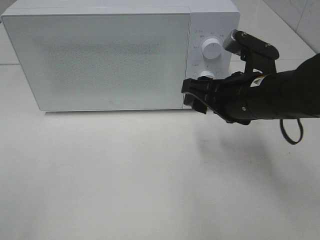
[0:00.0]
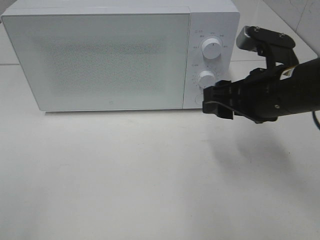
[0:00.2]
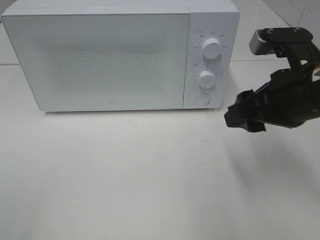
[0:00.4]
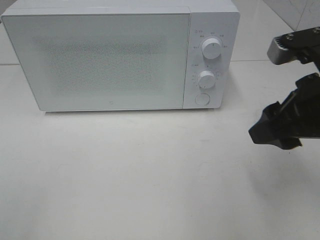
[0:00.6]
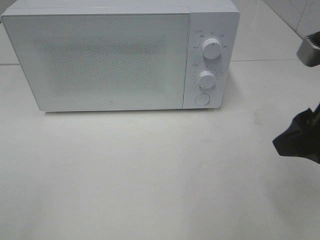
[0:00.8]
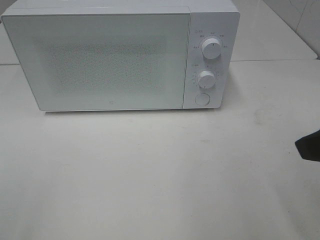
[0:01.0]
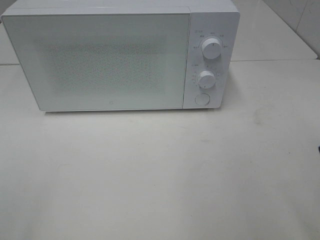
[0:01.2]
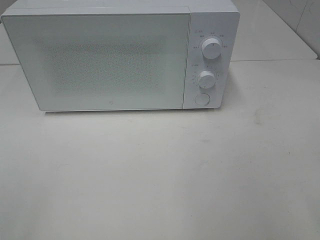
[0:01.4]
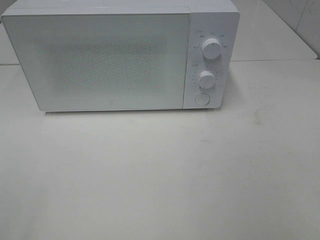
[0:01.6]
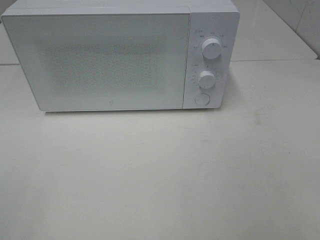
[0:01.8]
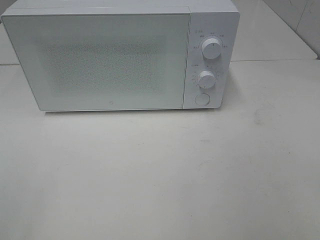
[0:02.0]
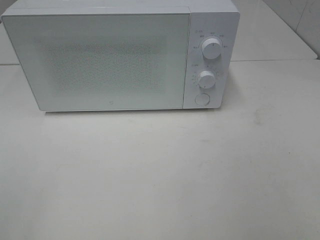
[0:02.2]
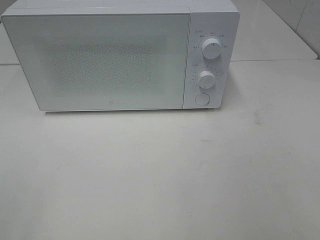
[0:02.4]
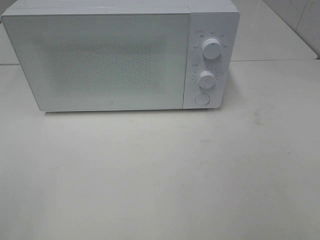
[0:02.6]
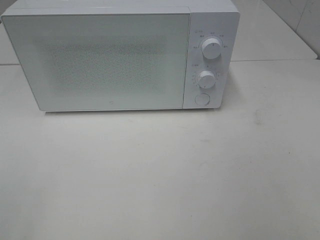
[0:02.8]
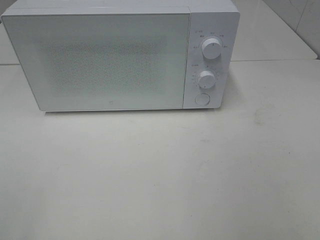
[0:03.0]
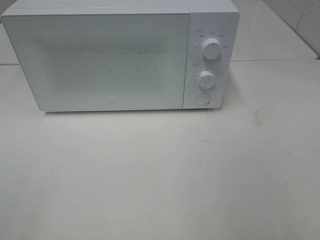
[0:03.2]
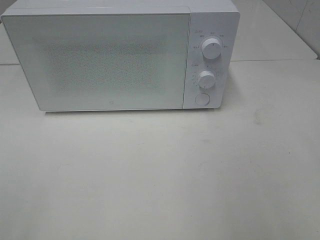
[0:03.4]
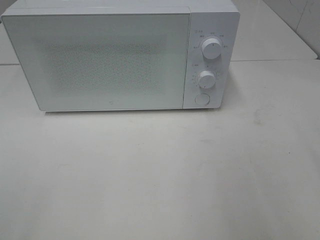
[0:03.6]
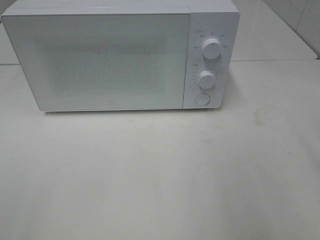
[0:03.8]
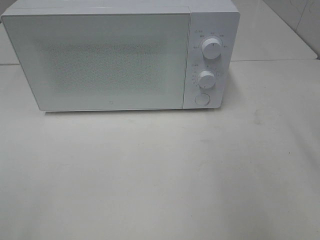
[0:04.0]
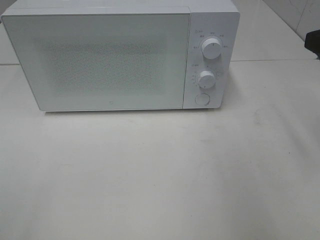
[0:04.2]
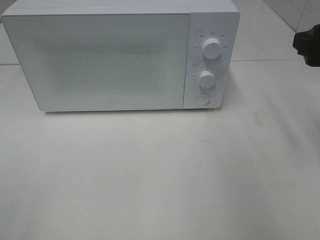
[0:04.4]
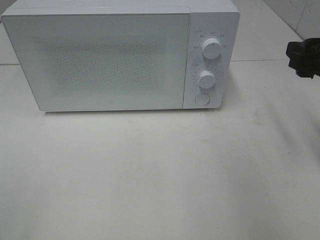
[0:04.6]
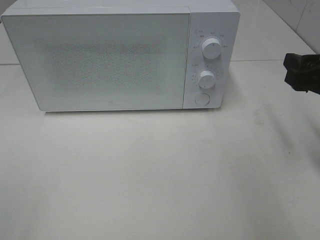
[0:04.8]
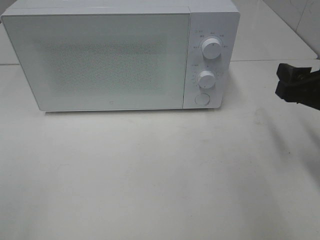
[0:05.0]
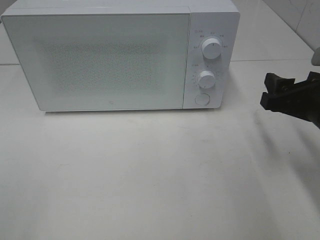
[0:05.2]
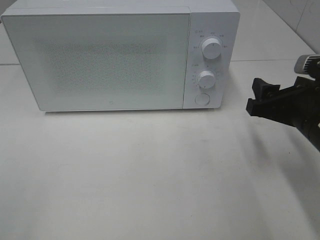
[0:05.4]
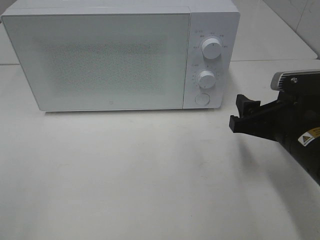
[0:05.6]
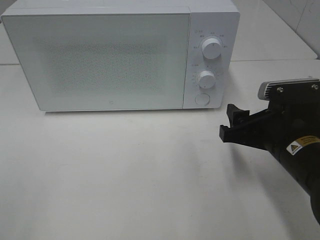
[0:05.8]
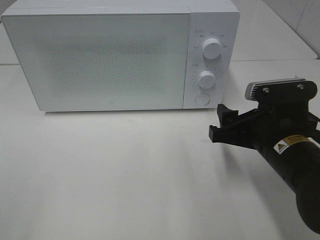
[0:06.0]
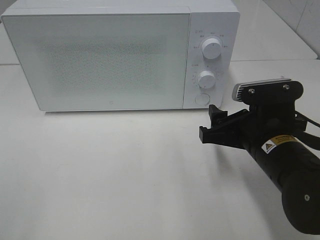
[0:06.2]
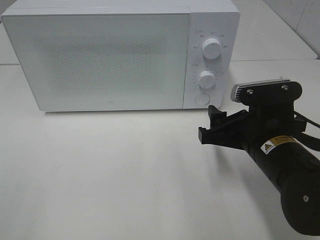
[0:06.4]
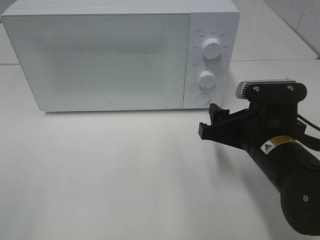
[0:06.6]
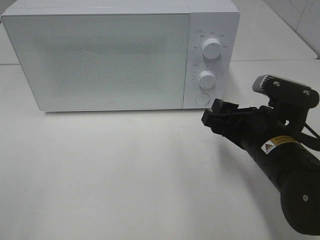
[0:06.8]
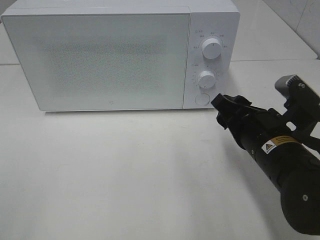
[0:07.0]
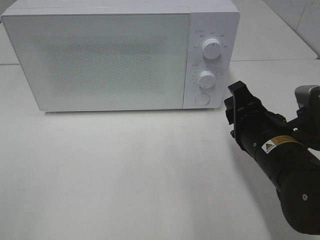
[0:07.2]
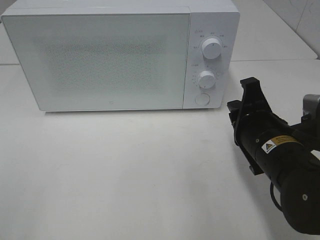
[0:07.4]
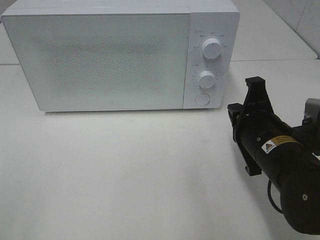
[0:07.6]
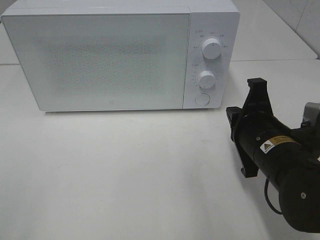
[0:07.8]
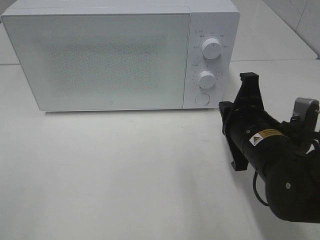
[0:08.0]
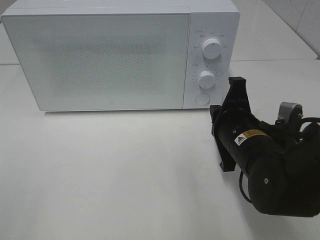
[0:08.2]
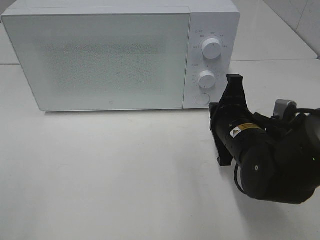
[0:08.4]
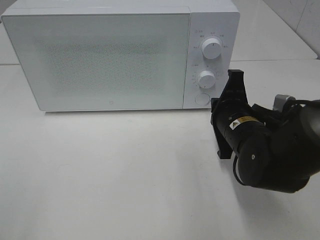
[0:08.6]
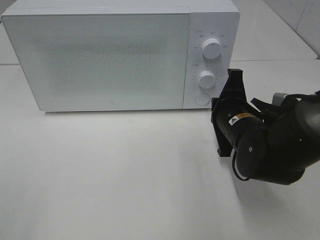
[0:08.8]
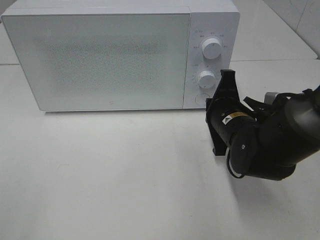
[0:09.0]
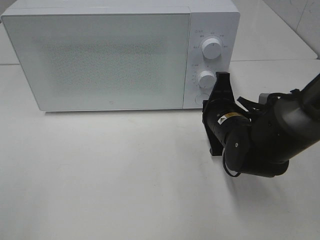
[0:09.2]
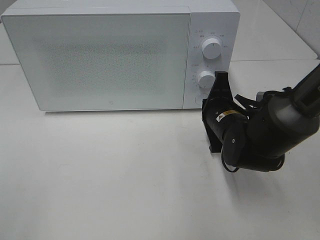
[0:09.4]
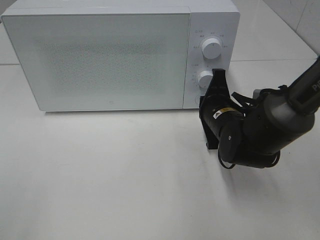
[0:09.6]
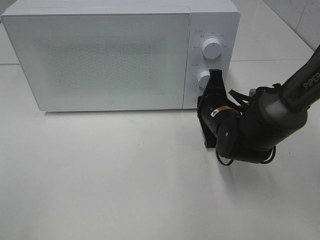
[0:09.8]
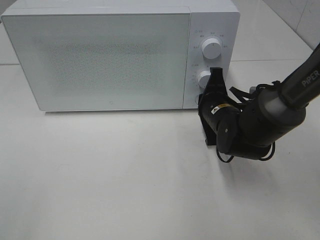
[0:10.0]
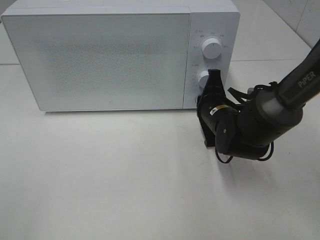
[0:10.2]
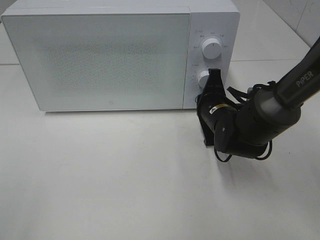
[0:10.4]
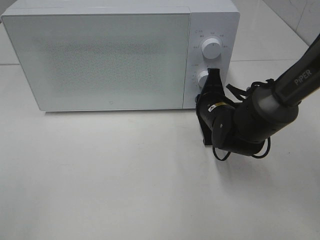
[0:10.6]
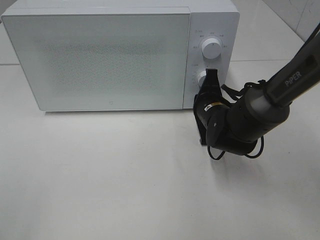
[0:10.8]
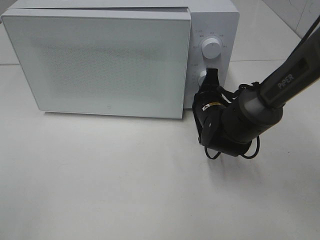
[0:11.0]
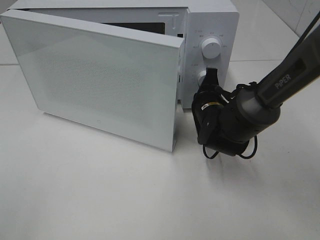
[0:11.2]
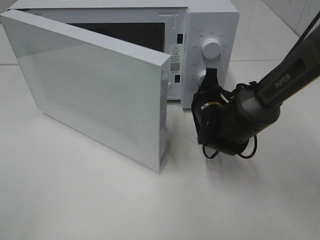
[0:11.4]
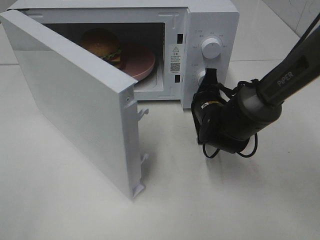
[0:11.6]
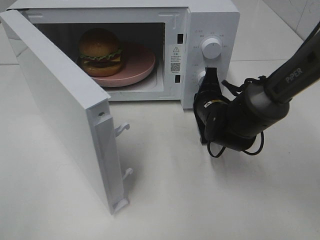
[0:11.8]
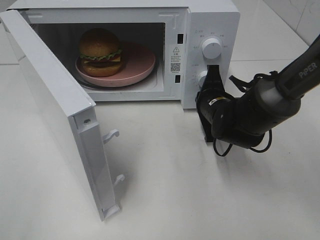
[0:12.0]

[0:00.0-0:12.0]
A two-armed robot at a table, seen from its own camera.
Task of the whole recording: Heat the burger.
0:00.0 to 0:01.6: The right gripper travels backward, to the right and upward by roughly 30 cm.
0:03.0 to 0:04.4: The right gripper goes some 20 cm forward.
0:04.4 to 0:06.0: The right gripper travels downward and to the left by about 15 cm.
0:06.0 to 0:07.6: The right gripper closes up.
0:07.6 to 0:09.0: The right gripper travels forward by about 10 cm.
0:09.0 to 0:10.4: The right gripper shifts roughly 5 cm forward.

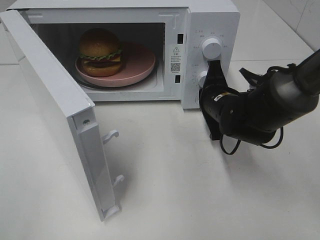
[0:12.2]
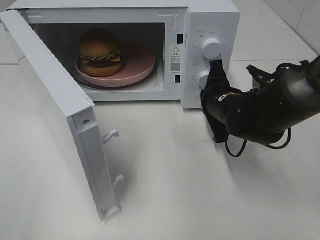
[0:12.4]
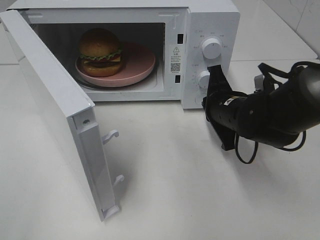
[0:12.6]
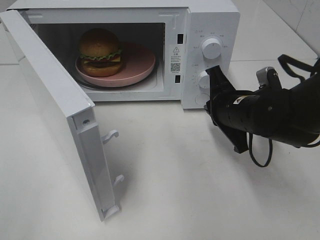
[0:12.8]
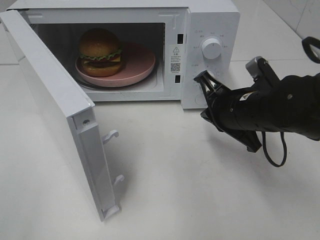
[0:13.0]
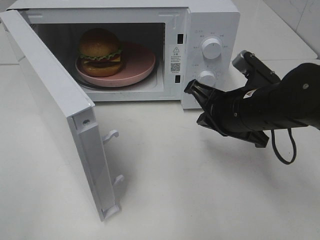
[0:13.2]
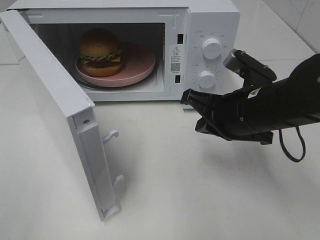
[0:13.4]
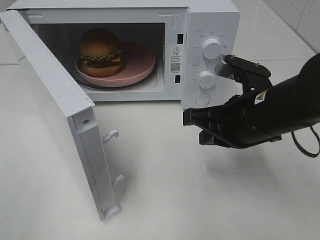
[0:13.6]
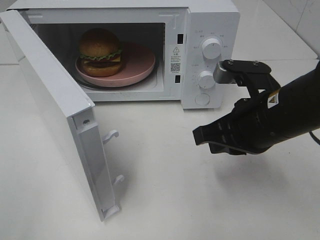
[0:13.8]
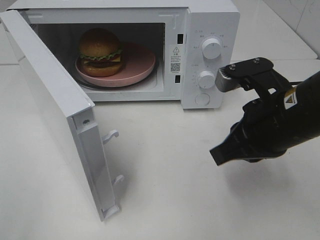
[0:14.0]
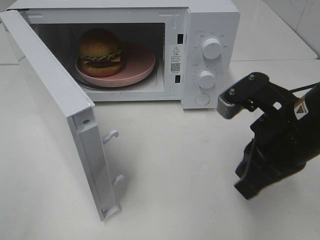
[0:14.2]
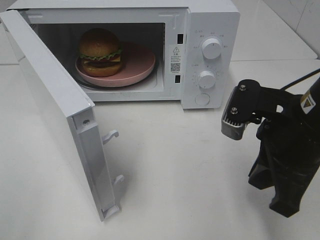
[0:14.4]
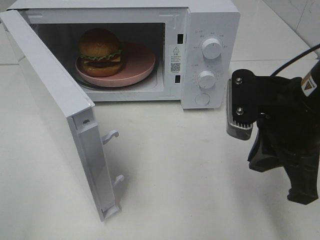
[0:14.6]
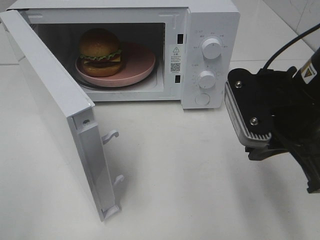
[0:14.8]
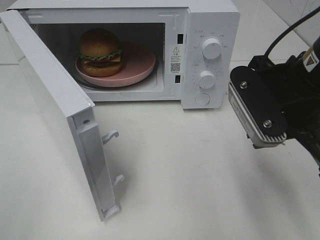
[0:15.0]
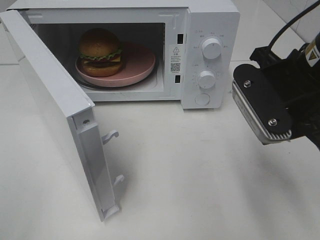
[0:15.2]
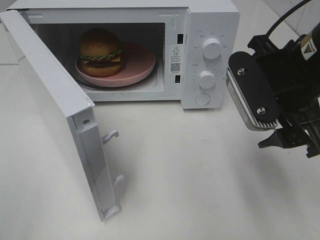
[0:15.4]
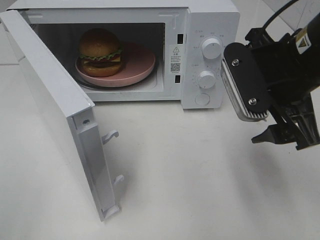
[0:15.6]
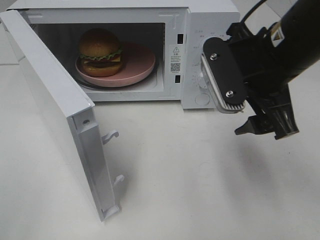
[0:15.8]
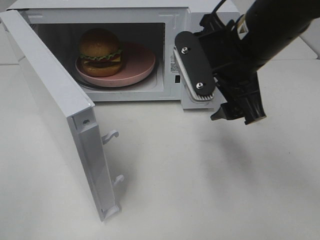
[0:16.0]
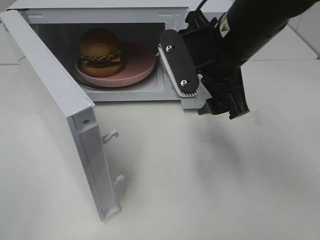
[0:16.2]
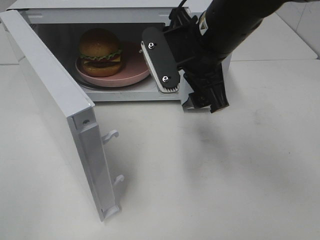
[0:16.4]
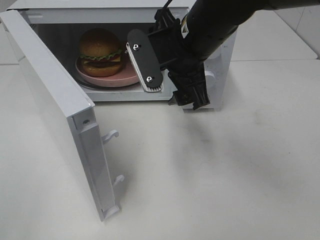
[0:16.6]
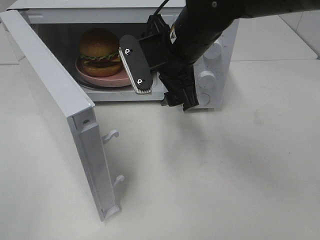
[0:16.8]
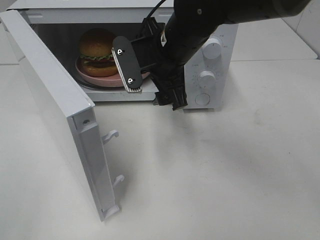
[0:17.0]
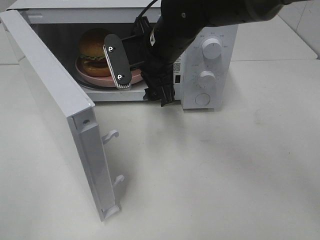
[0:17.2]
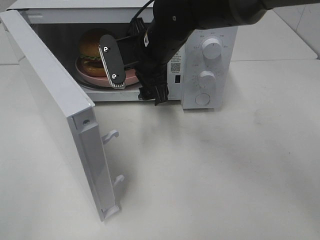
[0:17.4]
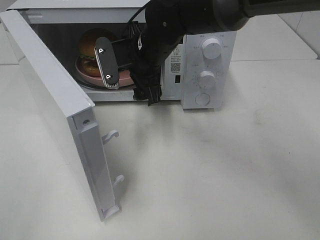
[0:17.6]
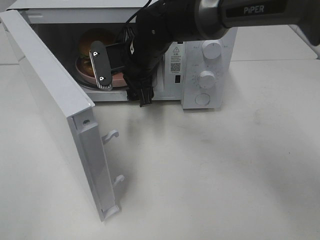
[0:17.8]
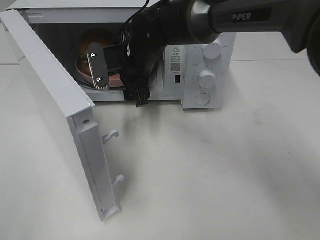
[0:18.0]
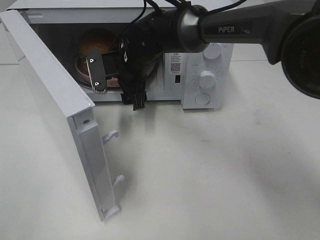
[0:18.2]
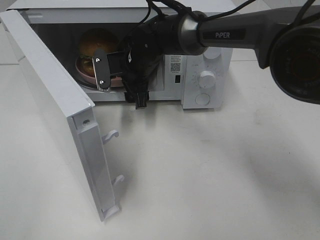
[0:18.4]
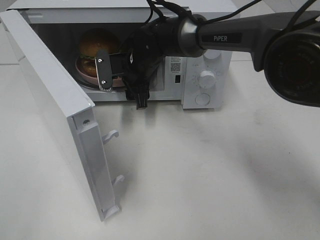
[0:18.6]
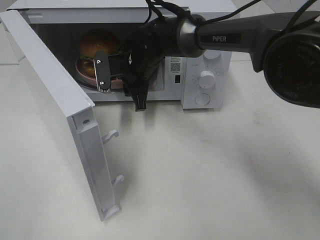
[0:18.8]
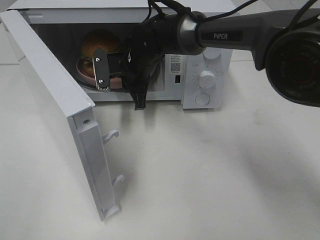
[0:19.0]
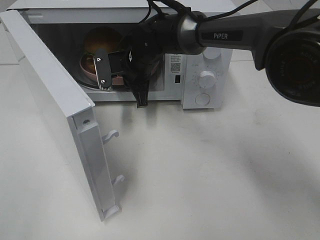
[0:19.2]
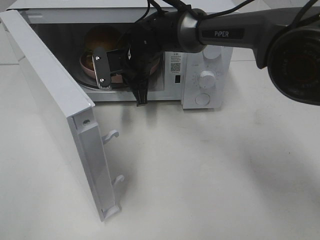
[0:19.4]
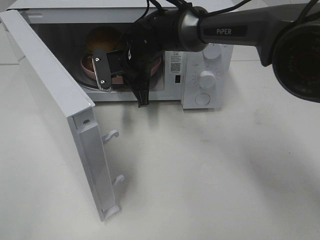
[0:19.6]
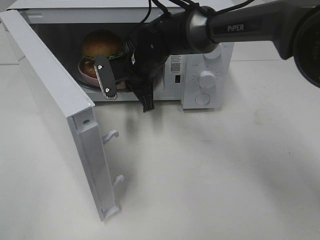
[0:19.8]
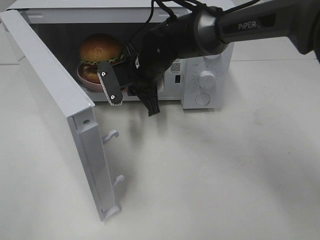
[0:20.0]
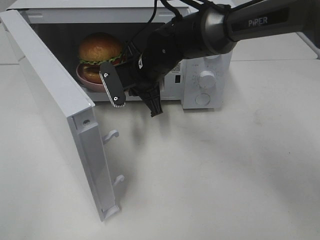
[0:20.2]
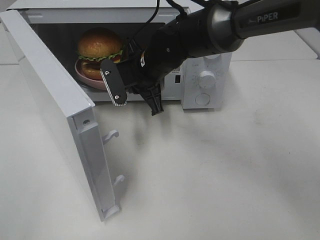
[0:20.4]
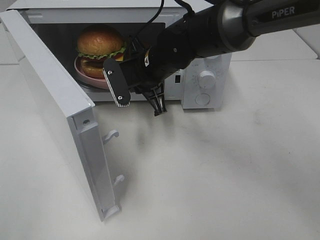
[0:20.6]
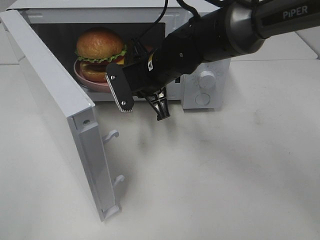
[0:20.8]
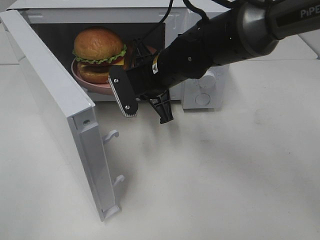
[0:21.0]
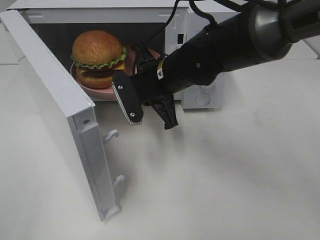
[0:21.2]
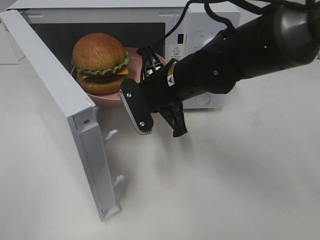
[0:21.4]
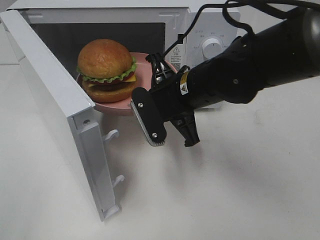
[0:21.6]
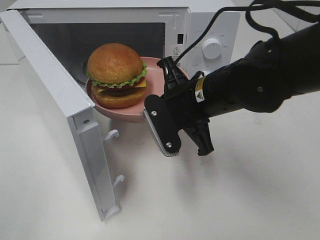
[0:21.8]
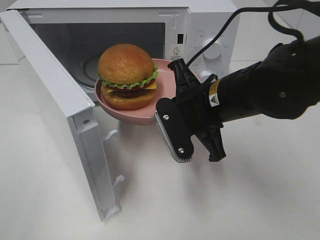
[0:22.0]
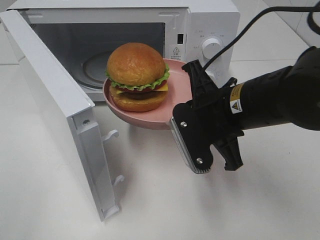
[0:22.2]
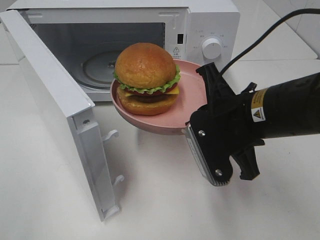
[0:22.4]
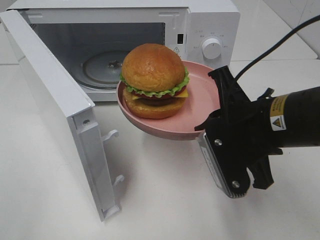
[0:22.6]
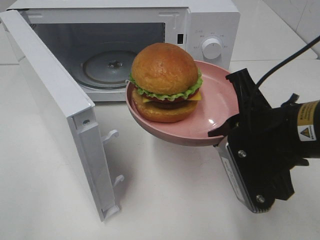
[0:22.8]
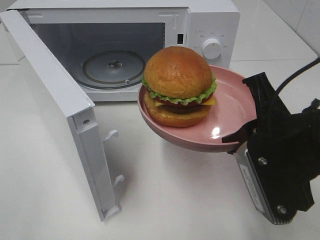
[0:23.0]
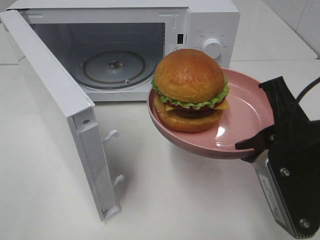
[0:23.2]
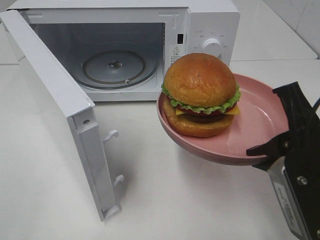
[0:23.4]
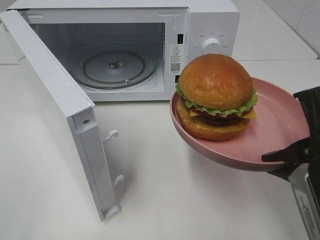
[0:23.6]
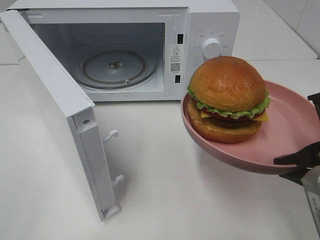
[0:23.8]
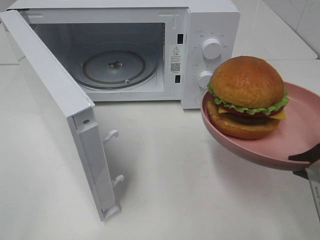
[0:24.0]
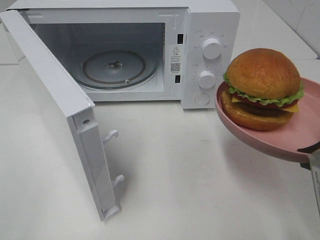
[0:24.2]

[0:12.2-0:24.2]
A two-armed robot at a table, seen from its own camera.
Task of the whole recording: Heat the burger.
Step, 0:12.8 to 0:19.4: Right hand: grab the plate with the hamburger.
0:12.2 to 0:13.8: The right gripper shifts roughly 15 cm backward and upward.
0:13.8 to 0:15.2: The right gripper shifts approximately 5 cm upward, and opens.
0:15.2 to 0:16.6: The right gripper shifts approximately 15 cm to the left and forward, and opens up.
0:16.6 to 0:18.2: The right gripper is displaced forward, downward and to the left by some 15 cm.
0:18.2 to 0:19.8: The right gripper closes up.
0:19.8 to 0:21.2: The right gripper moves backward, roughly 10 cm.
0:21.2 to 0:22.6: The right gripper is displaced backward and to the right by approximately 20 cm.
0:22.6 to 0:24.2: The right gripper heads to the right and backward, covering about 10 cm.
